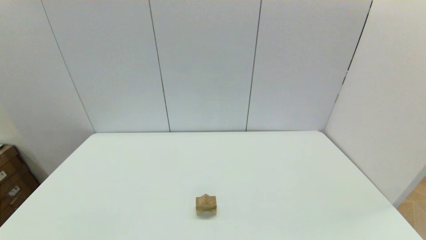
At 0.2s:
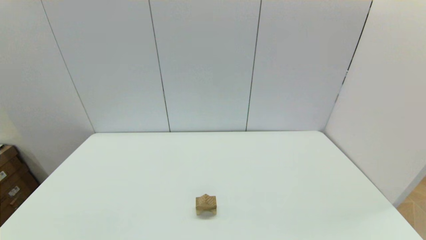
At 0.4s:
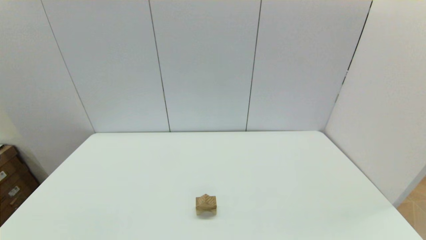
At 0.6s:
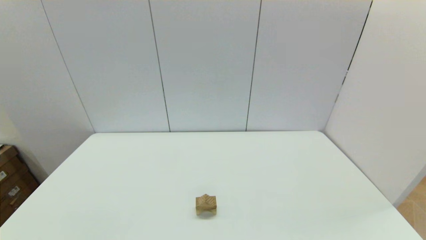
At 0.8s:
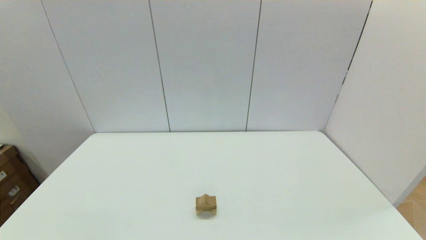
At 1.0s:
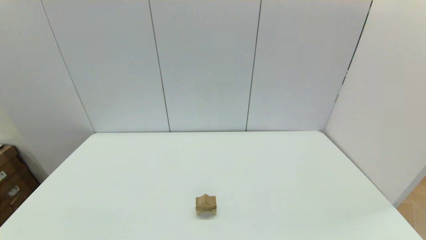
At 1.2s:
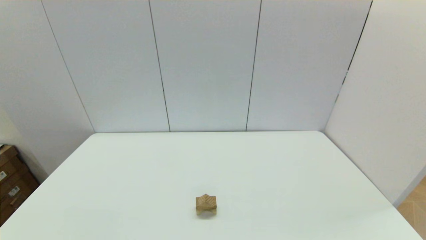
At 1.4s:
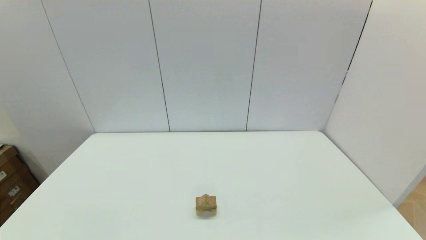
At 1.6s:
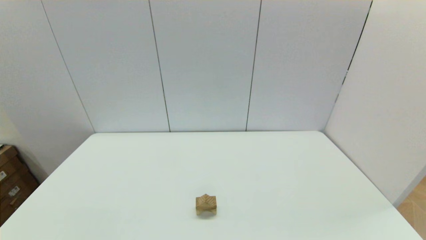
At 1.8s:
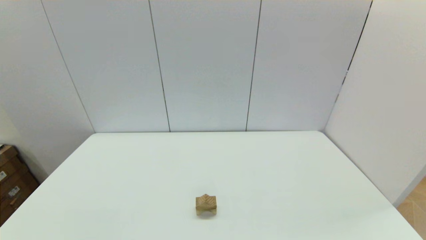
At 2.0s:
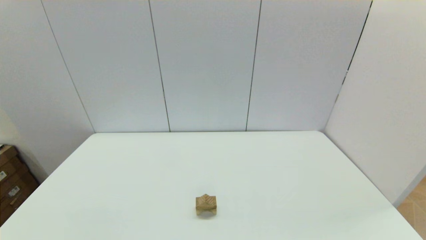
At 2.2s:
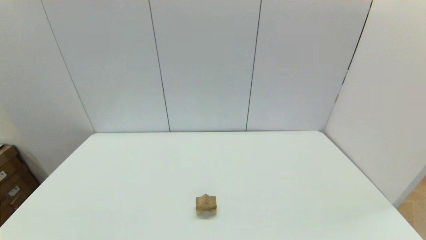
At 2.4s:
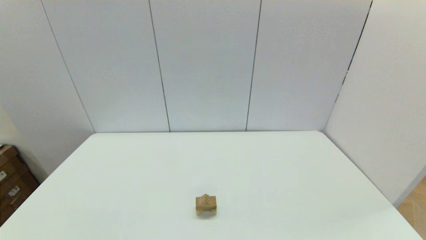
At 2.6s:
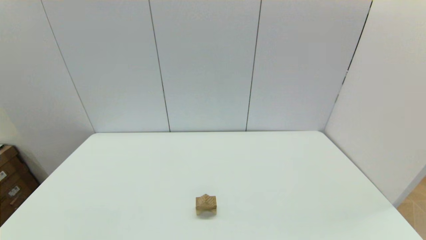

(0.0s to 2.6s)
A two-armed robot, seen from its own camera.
Task of the whole recording: place the arched building blocks in the center of the table, set up the rectangular building blocks, and then set up the triangular building blocks.
1.2s - 2.6s: Both grippers stay about where they are.

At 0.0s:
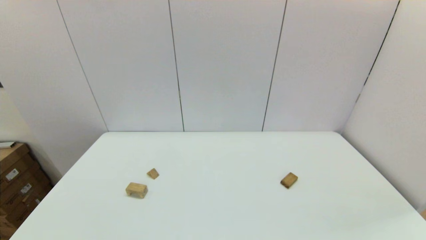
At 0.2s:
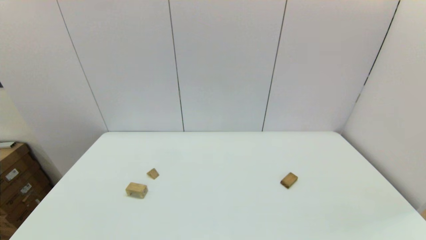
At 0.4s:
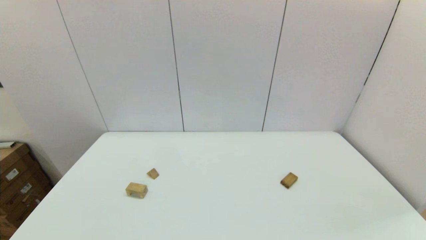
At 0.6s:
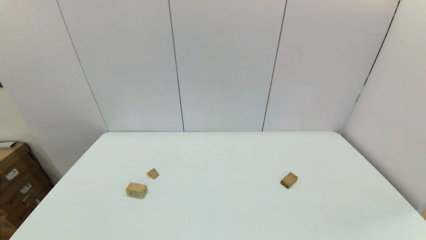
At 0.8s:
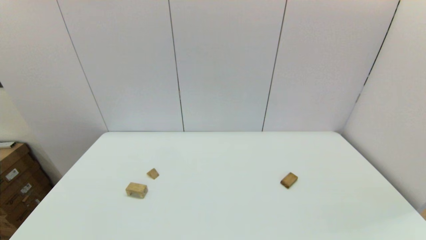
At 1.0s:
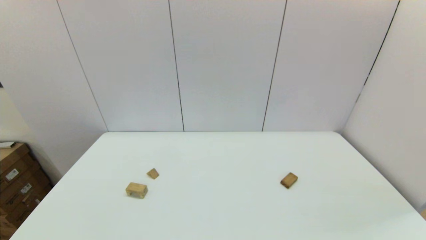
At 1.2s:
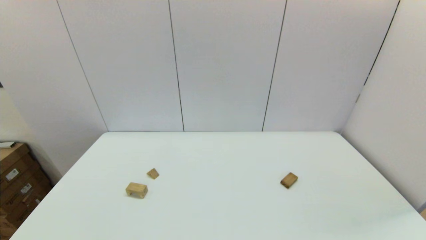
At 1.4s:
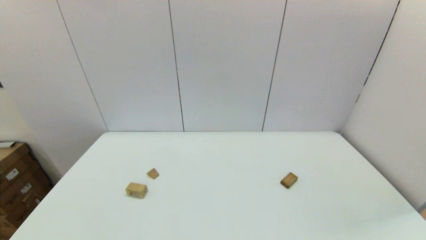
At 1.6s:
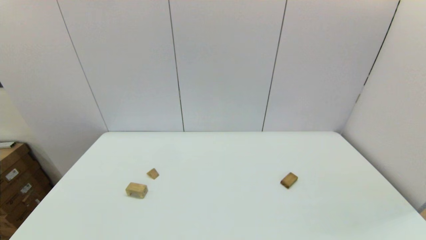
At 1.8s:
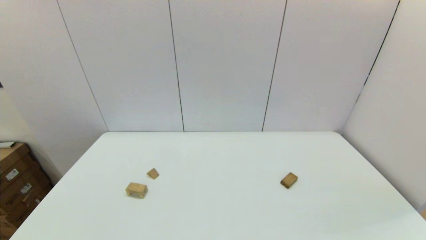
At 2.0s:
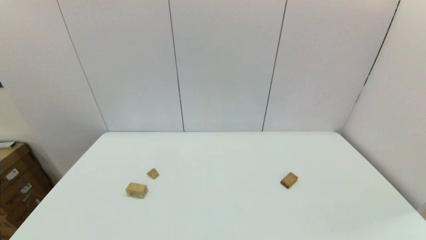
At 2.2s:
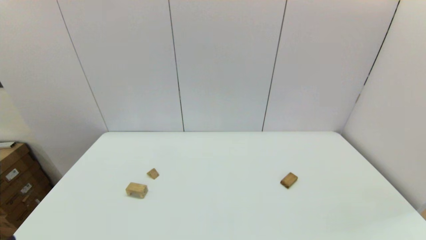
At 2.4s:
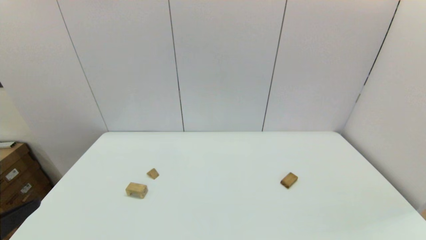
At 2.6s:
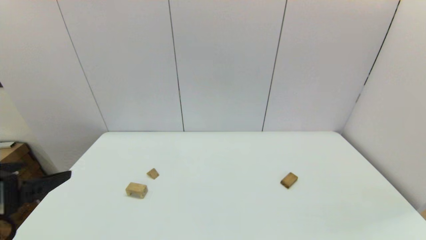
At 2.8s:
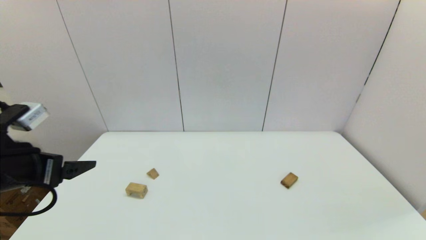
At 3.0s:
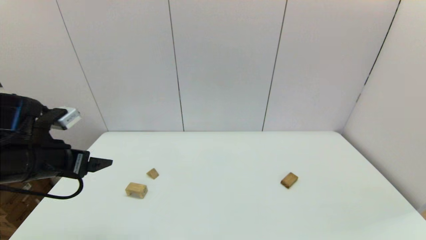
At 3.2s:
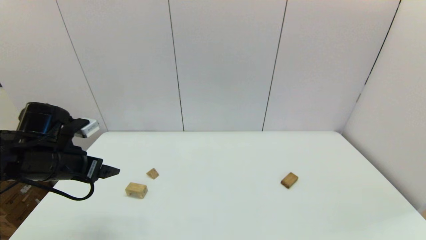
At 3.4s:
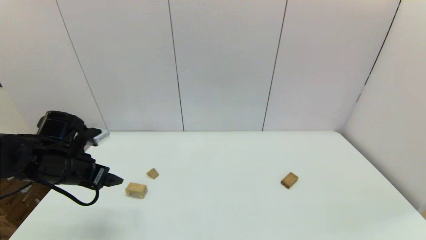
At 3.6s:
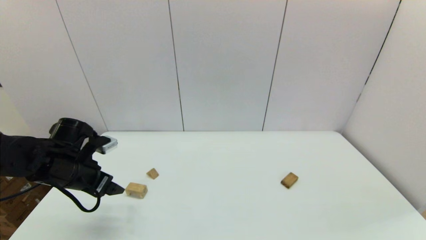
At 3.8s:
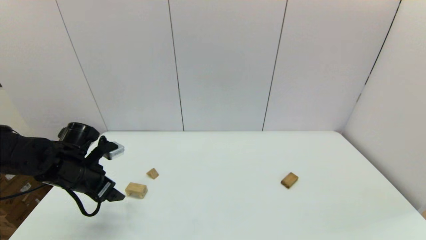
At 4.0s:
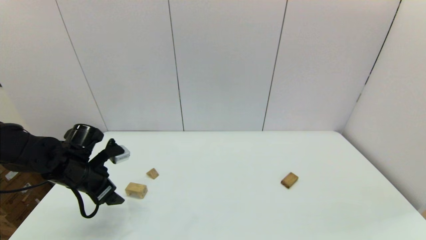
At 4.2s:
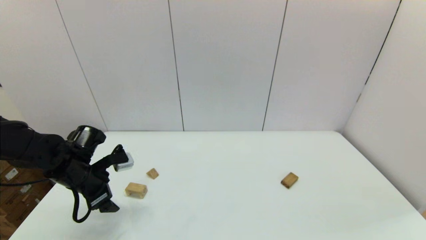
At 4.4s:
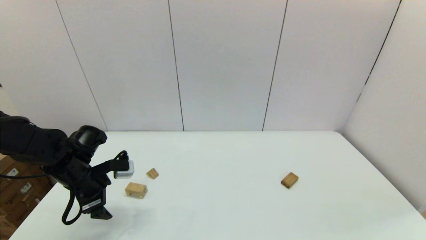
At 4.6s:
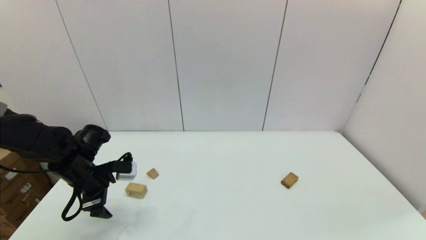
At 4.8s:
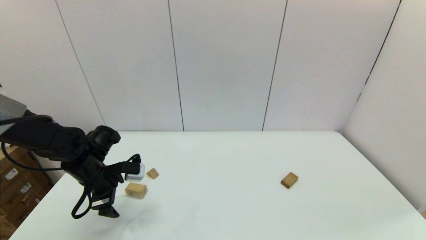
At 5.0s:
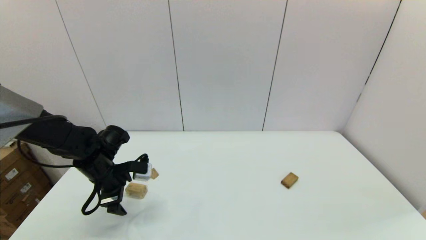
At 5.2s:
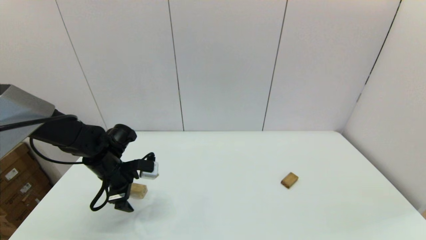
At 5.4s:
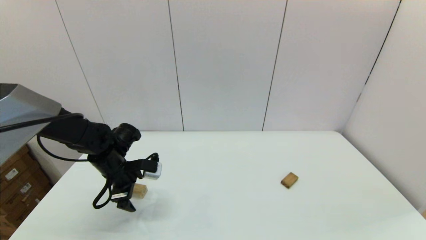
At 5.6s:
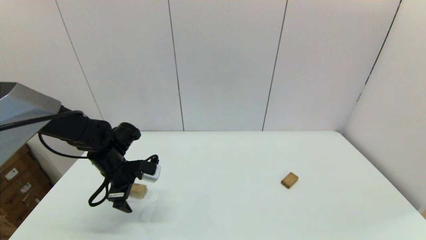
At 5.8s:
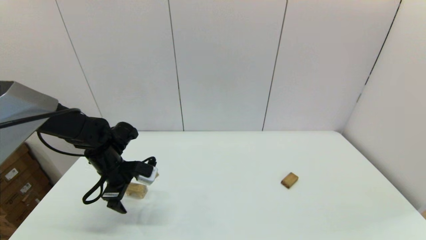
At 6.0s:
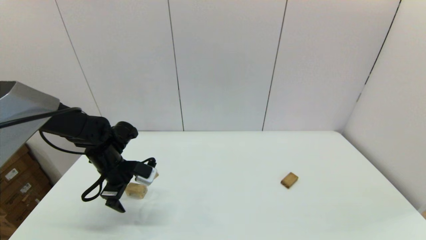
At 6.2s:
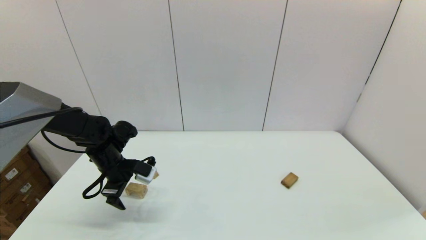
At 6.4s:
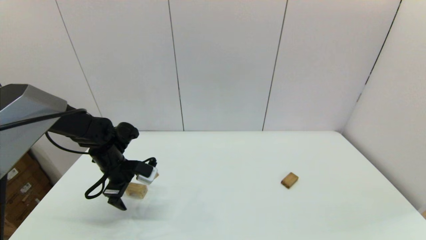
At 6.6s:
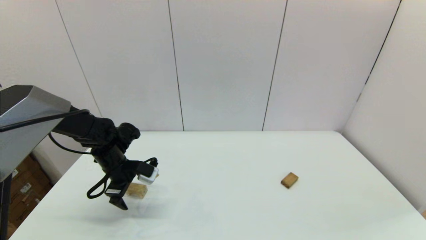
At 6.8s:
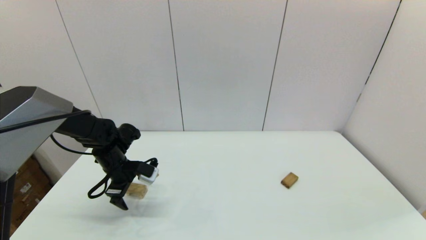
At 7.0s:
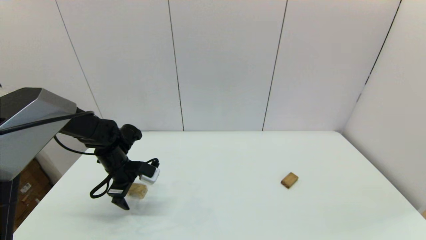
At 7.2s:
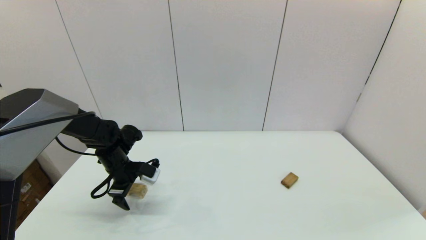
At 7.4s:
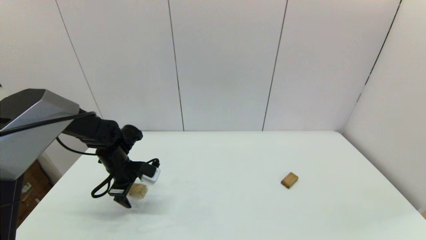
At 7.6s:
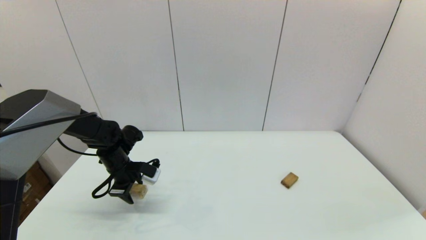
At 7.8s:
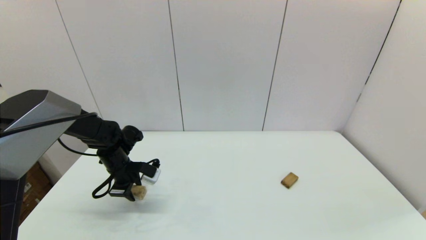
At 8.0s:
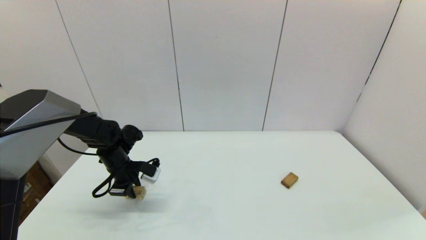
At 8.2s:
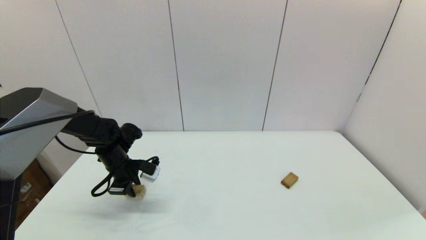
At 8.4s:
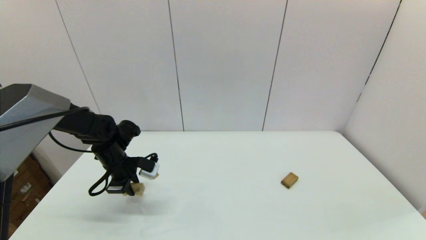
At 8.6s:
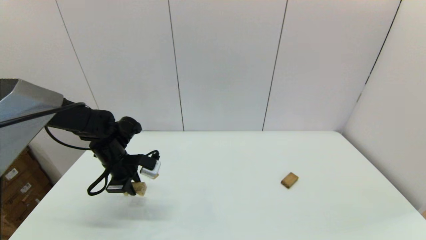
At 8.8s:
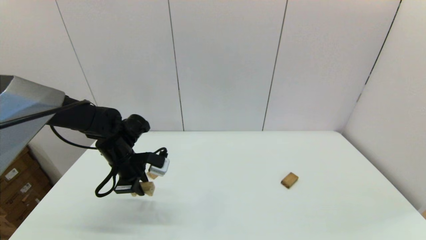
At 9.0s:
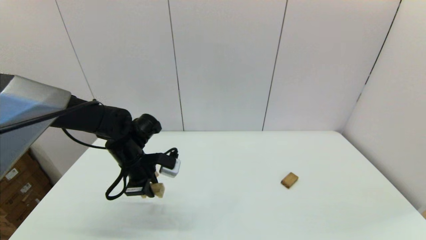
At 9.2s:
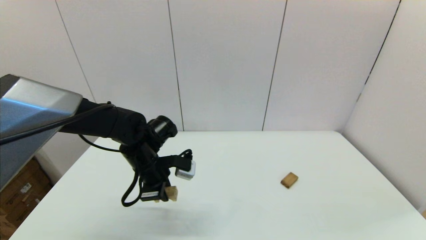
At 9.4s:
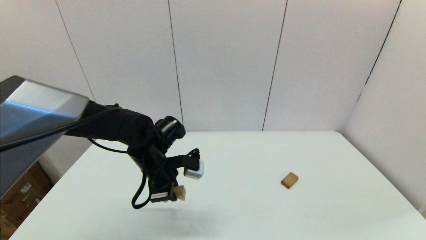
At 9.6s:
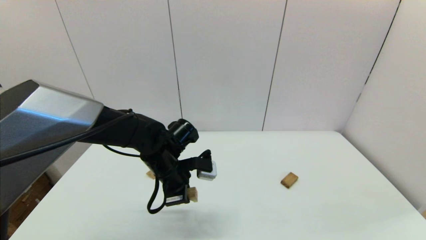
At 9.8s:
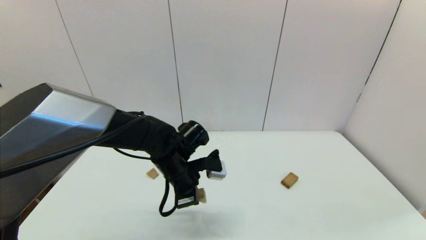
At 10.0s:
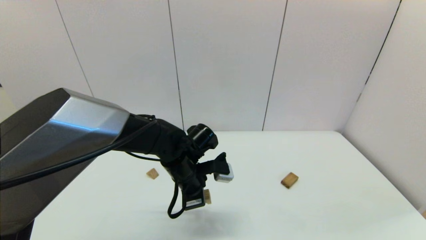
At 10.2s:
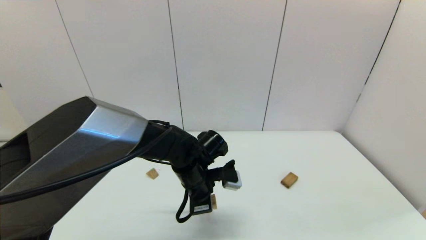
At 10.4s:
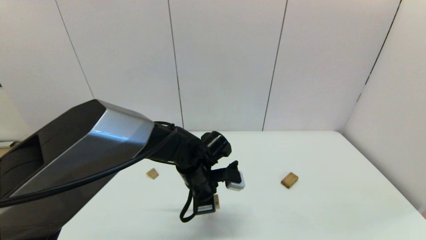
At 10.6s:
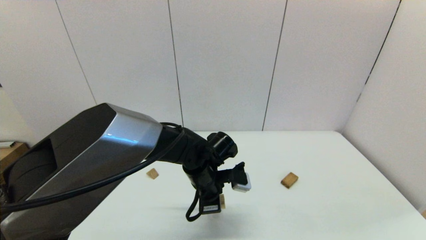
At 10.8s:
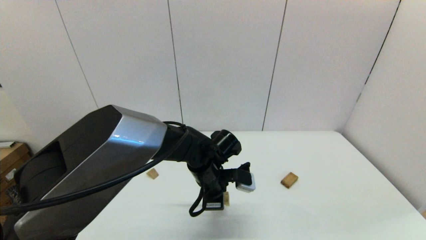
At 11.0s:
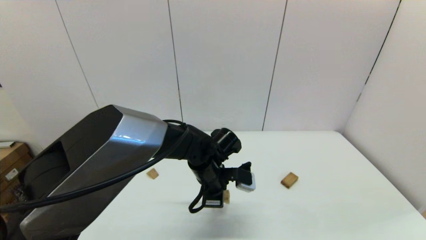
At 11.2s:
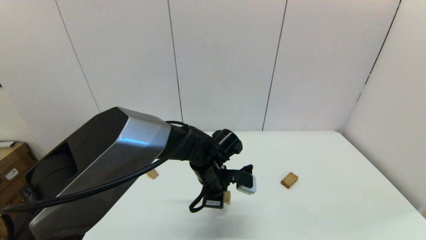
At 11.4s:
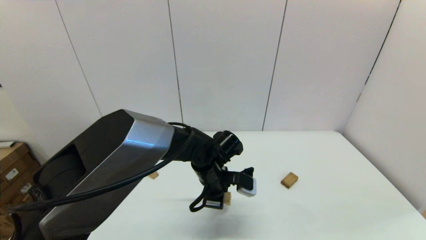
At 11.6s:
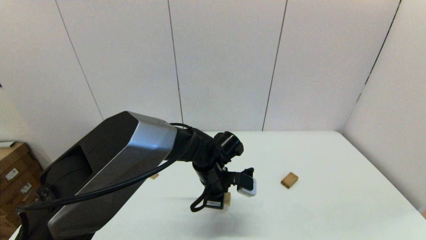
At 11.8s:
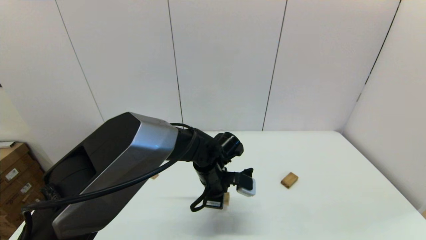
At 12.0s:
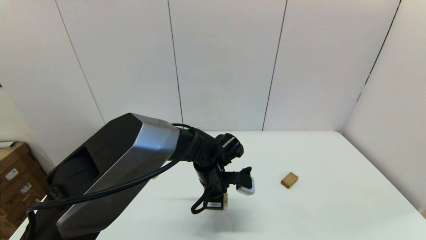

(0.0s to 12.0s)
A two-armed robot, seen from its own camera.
Task of the whole recording: place the arched building blocks in the center of the table, set up the rectangular building blocks, and then set up the triangular building blocks.
Step, 2.4s - 7.8s: Grasp the arch-shaped block with the left gripper.
0.0s - 1.6s: Both grippers stay put.
1.6s - 3.0s: The left gripper heads forward and upward, covering about 25 cm.
3.0s - 4.4s: The left gripper goes some 10 cm downward and forward.
4.4s - 6.0s: The left gripper travels forward by about 5 cm.
6.0s - 7.6s: The left gripper closes up.
7.6s - 9.0s: The left gripper is displaced to the right and upward by roughly 10 cm, and closes.
9.0s - 10.4s: The left gripper travels to the right by approximately 15 cm.
10.4s - 12.0s: There are only small adjustments of the grippers.

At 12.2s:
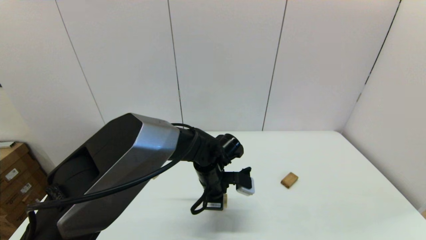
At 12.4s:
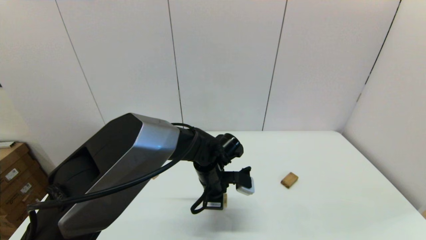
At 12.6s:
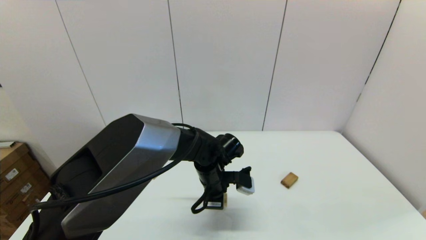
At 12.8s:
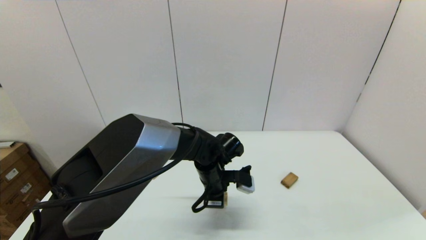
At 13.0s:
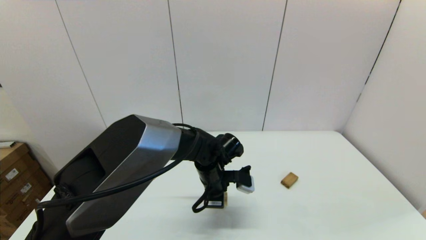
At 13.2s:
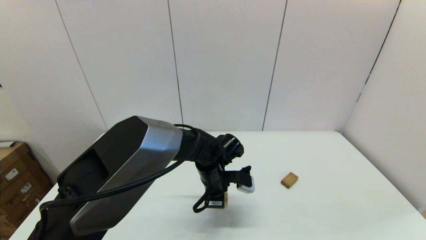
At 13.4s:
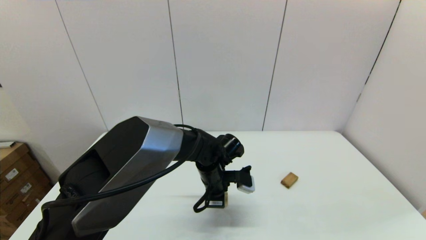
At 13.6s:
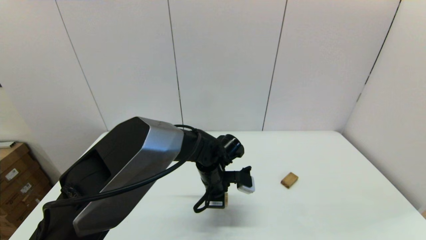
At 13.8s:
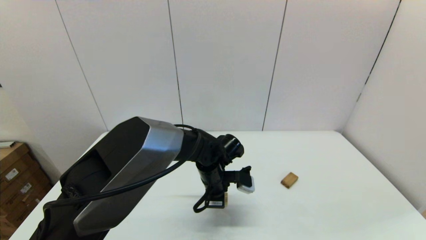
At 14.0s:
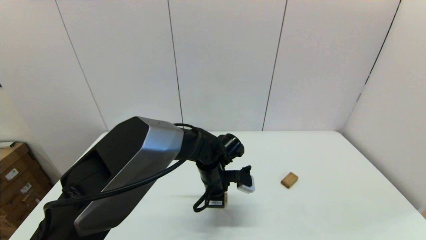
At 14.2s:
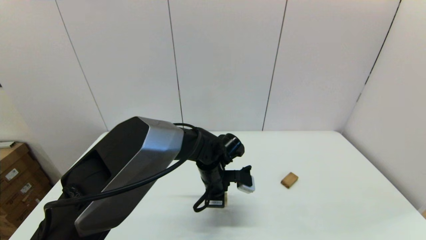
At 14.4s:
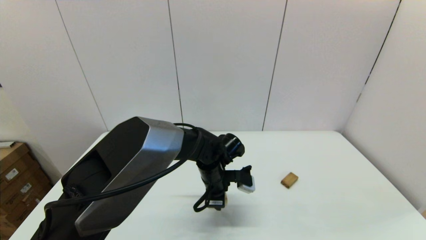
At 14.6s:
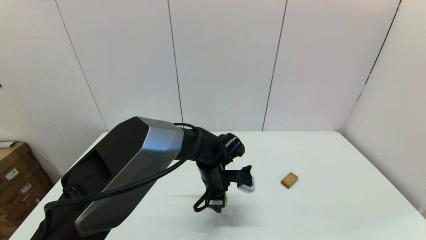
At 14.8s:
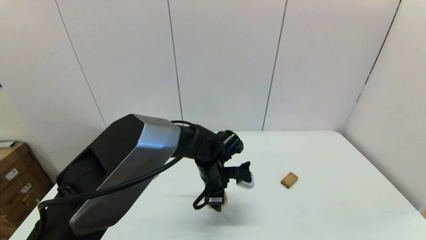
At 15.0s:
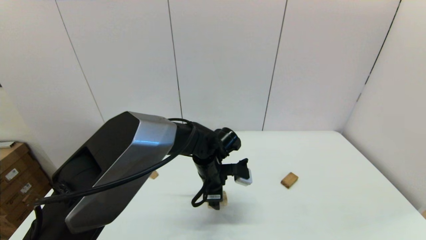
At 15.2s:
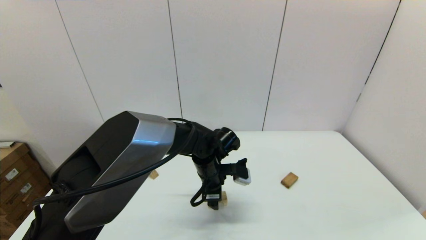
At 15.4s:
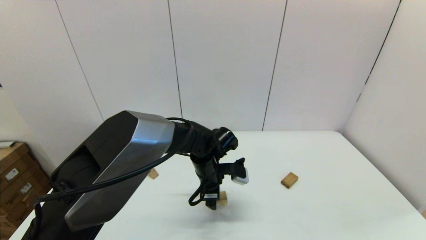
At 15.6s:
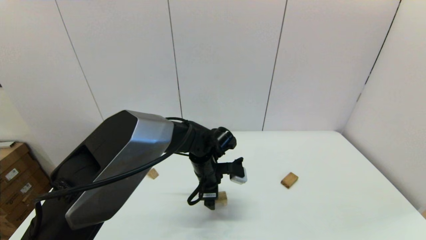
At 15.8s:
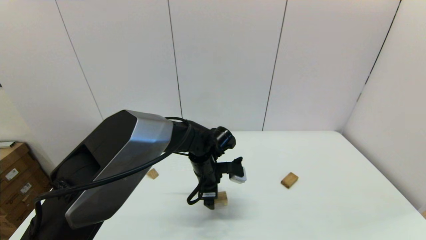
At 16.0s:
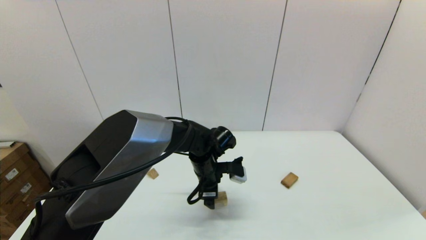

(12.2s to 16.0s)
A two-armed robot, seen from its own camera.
Task of the whole recording: place the arched building blocks in the center of the table, set up the rectangular building blocks, and then set up the triangular building blocks.
12.2s - 13.4s: Both grippers stay put.
13.4s - 14.8s: The left gripper opens up.
14.8s - 16.0s: The grippers move only a little.
